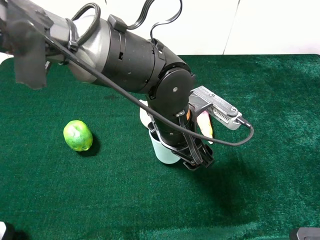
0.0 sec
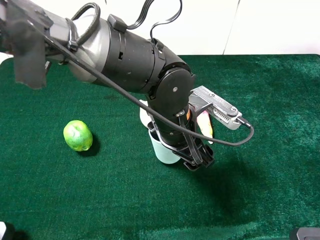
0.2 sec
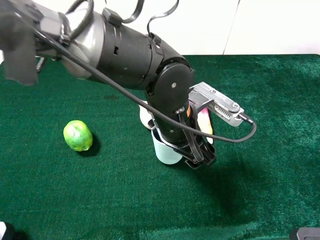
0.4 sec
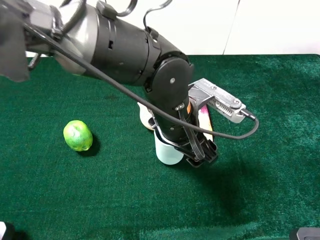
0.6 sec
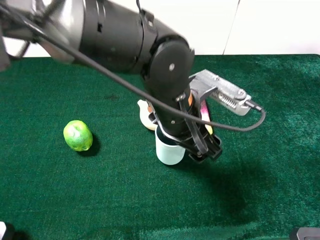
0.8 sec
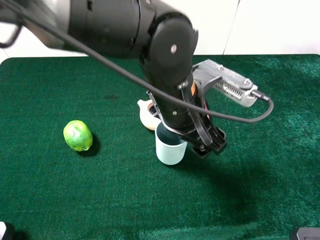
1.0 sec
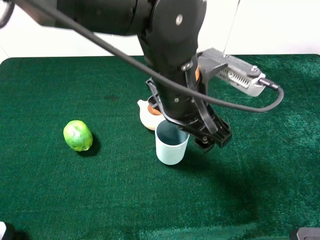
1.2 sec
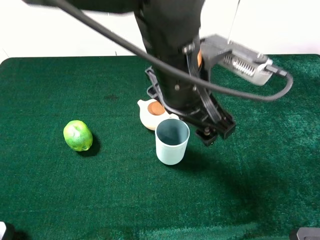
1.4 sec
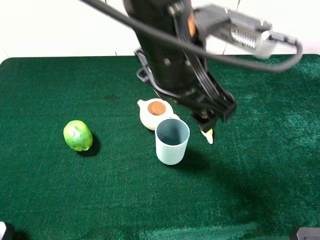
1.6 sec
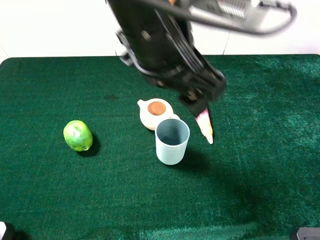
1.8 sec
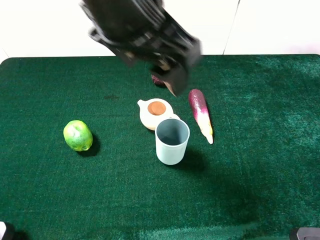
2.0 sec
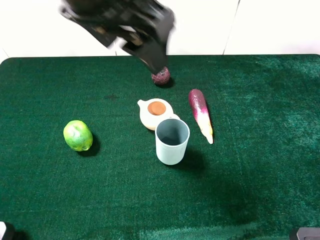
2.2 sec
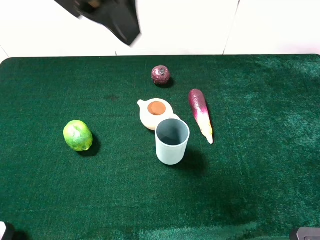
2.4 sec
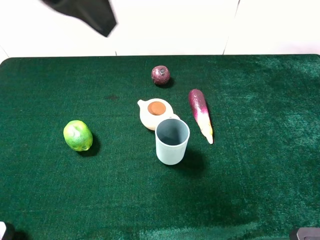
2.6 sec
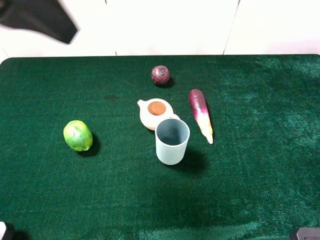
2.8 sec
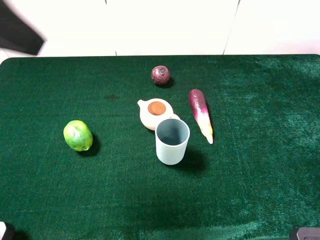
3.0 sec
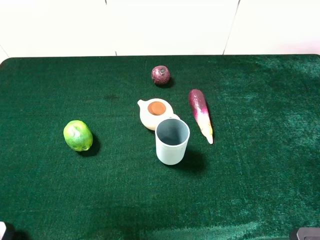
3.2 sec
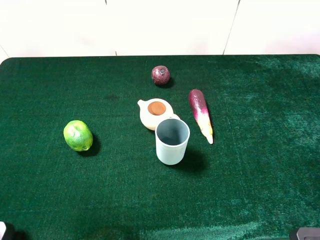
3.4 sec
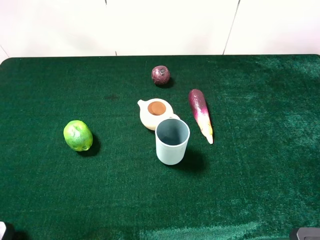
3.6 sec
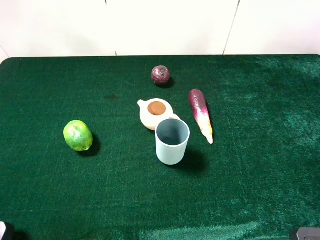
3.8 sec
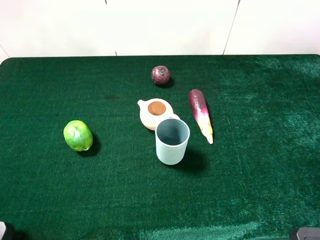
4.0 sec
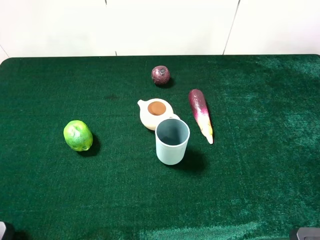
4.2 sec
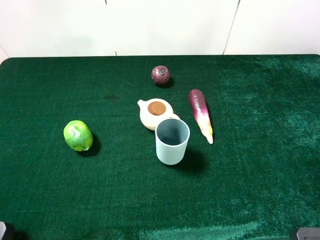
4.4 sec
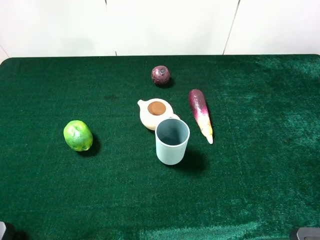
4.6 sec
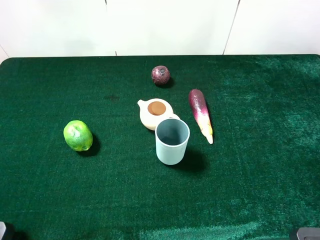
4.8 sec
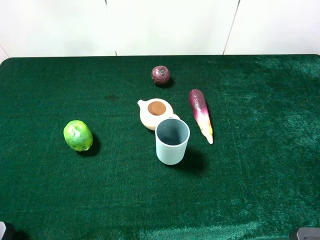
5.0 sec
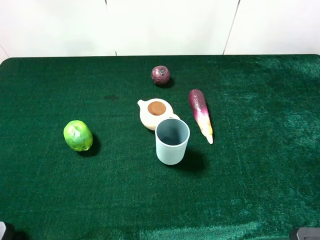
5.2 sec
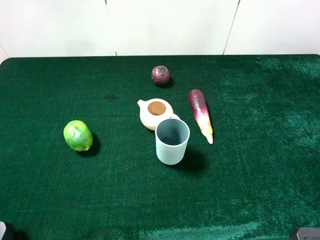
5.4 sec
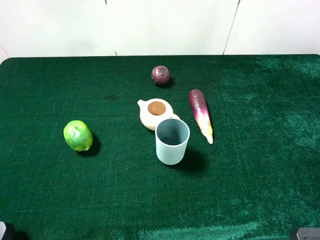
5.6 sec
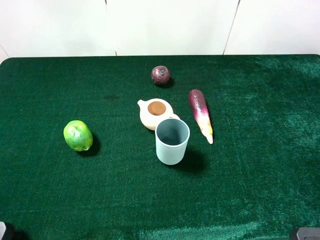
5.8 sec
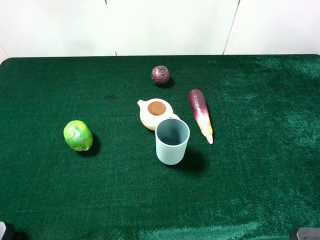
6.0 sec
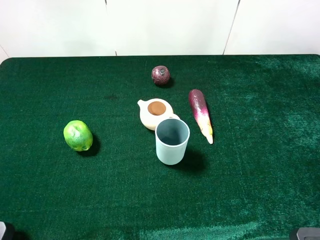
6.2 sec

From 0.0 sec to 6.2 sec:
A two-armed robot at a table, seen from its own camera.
Task of the whole recording: the gripper move the object.
From 0.0 sec to 1.6 sec: The left gripper travels upward by roughly 15 cm.
From 1.6 sec to 3.2 sec: The left gripper travels to the left and backward by approximately 25 cm.
From 3.2 sec to 4.6 sec: The left gripper heads downward, to the left and backward, covering roughly 15 cm.
